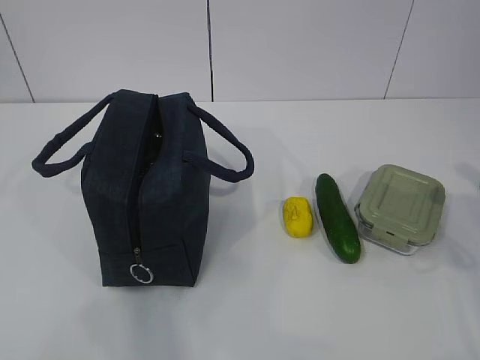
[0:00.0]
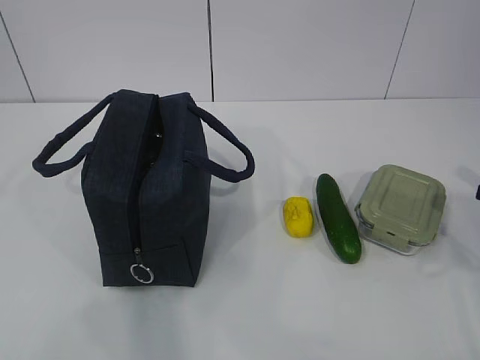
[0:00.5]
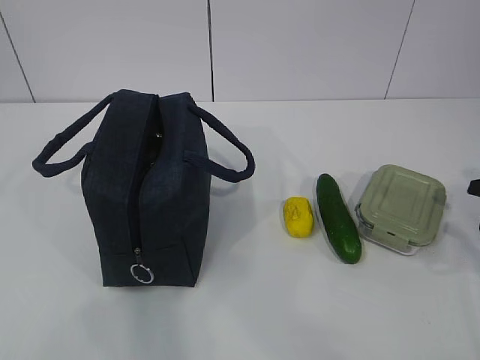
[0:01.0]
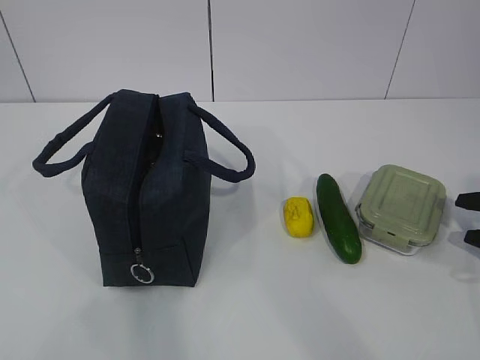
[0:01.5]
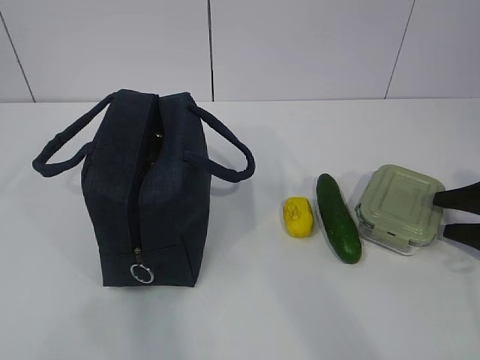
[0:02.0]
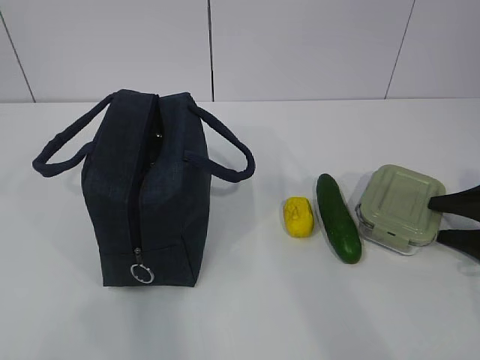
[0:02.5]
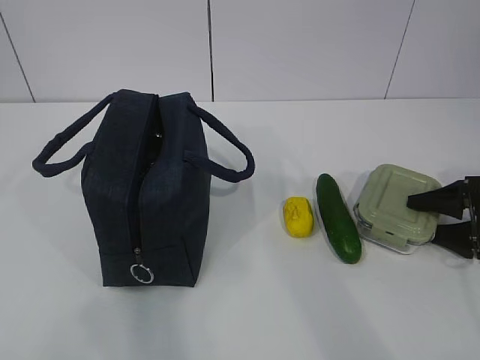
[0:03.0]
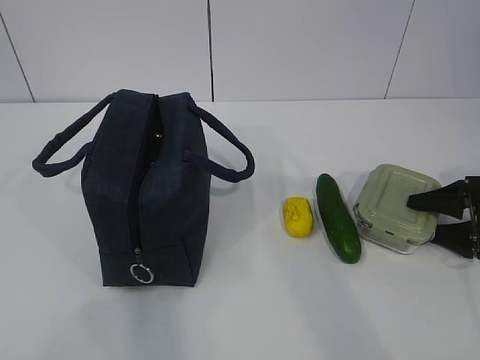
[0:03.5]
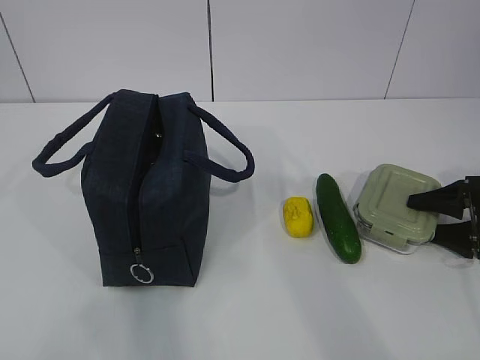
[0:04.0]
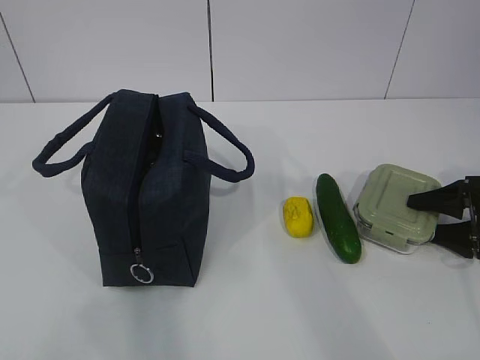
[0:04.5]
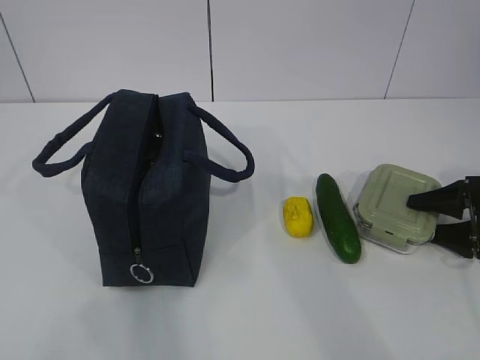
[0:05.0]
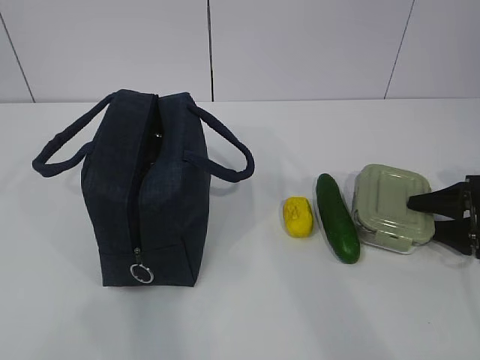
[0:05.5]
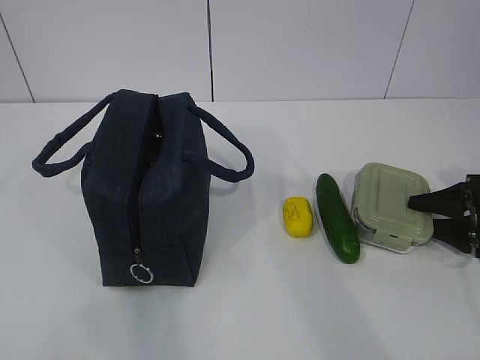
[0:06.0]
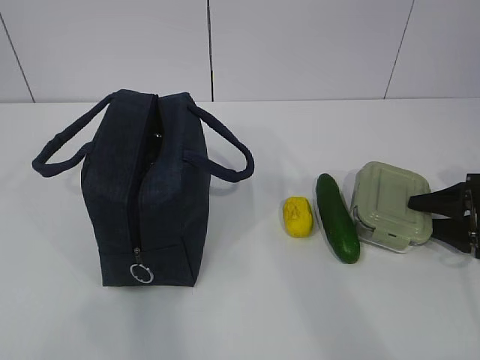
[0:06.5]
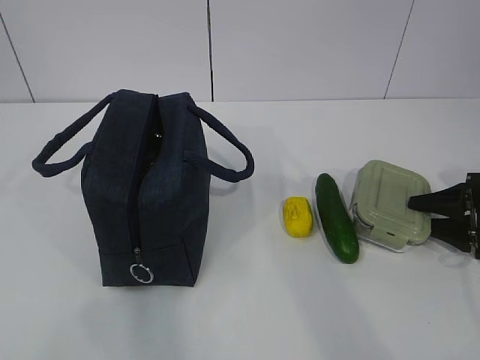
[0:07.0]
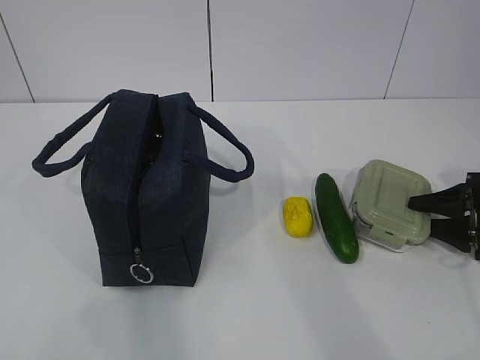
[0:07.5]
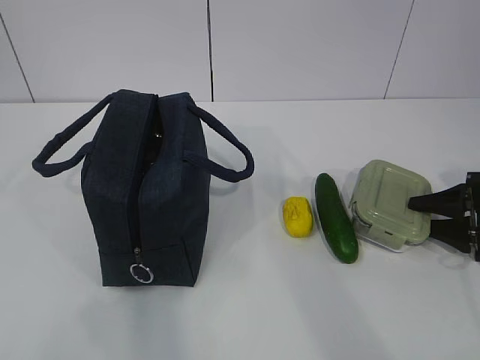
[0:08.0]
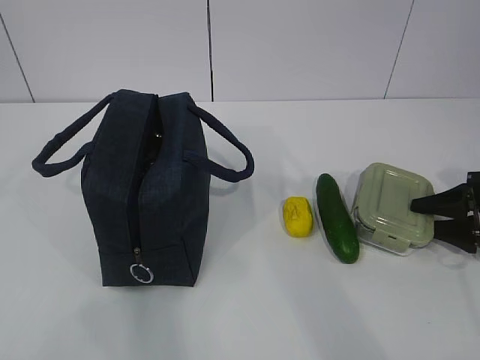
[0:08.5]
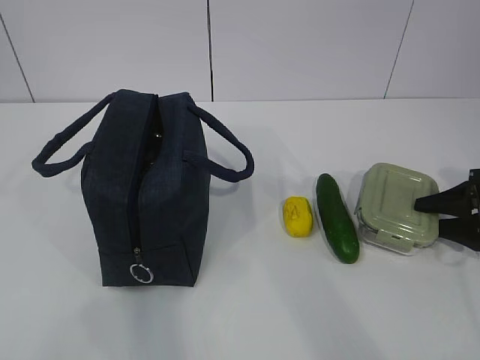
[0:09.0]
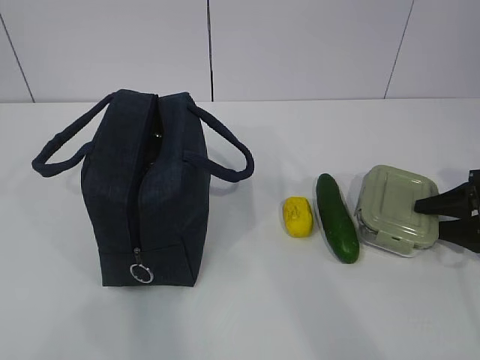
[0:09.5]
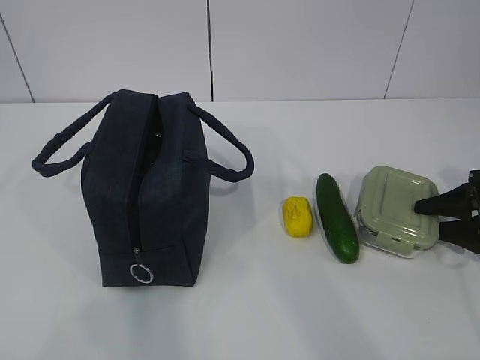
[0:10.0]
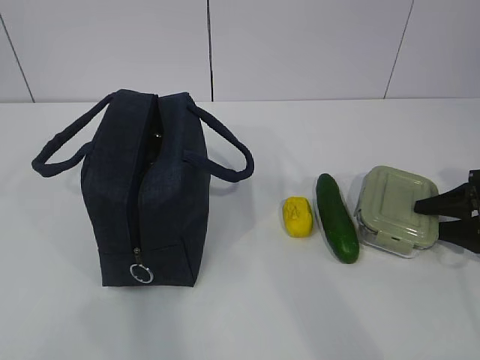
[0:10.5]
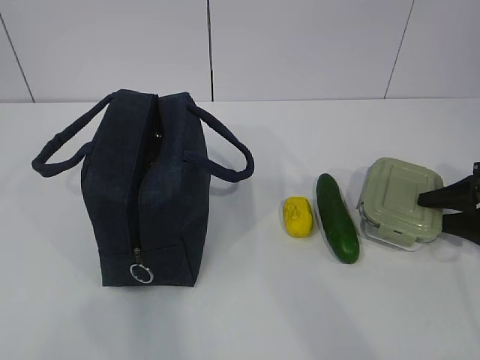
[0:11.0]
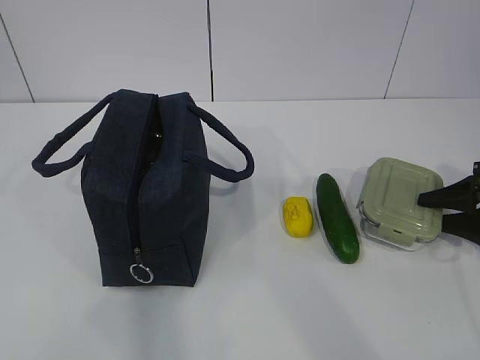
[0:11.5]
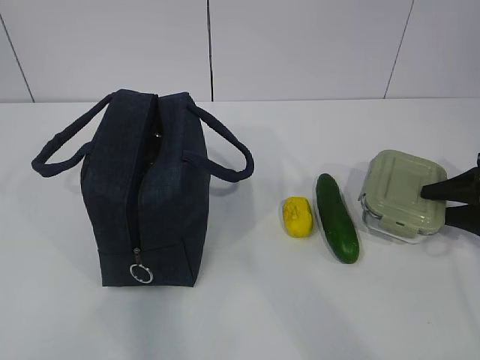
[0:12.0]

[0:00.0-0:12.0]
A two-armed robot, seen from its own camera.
Step, 0:00.0 to 0:07.5: Grab the lunch box with your right hand.
0:00.0 to 0:02.0: The right gripper goes roughly 10 cm downward and forward.
0:02.0 to 0:04.0: The grippers make only small movements.
0:04.0 to 0:08.0: Both grippers stay about where they are.
0:08.0 to 0:12.0: The grippers stay close to where they were, moving slightly.

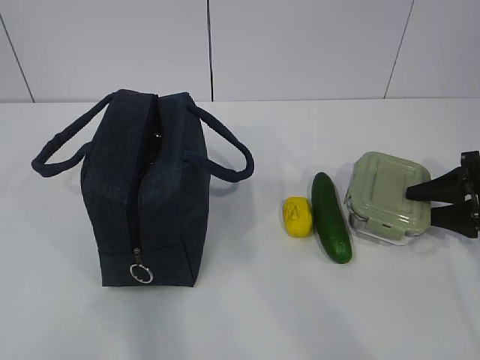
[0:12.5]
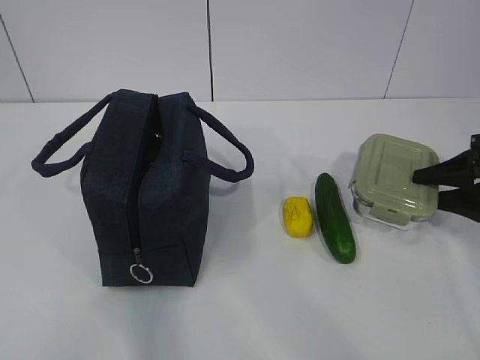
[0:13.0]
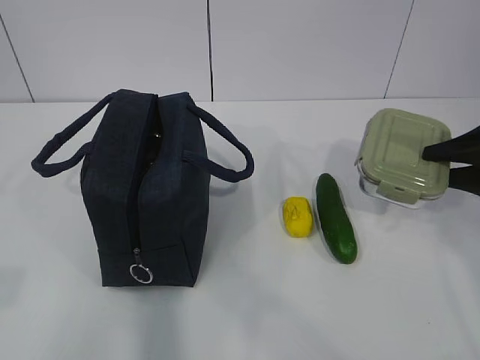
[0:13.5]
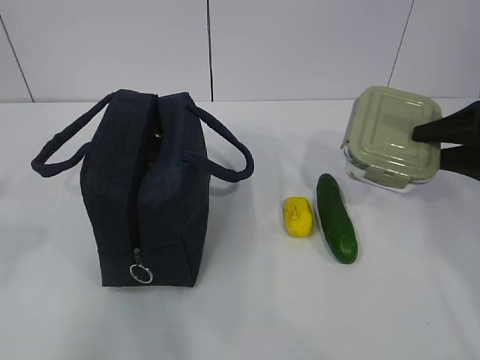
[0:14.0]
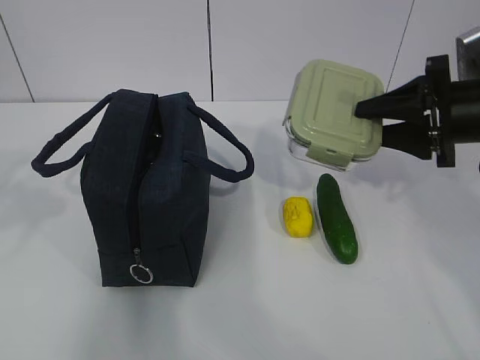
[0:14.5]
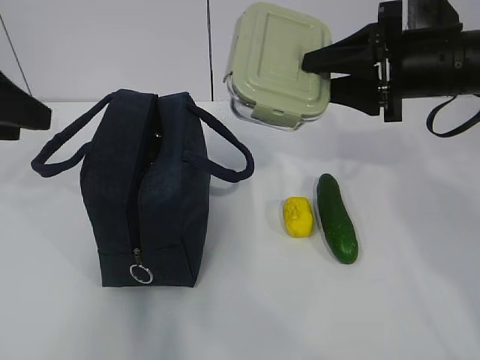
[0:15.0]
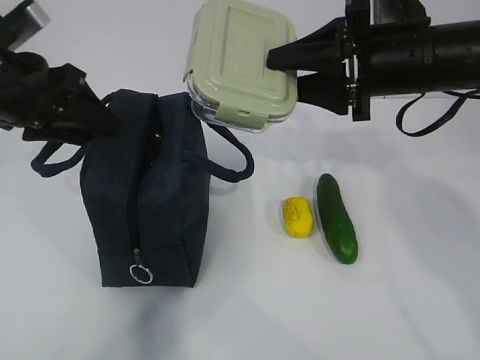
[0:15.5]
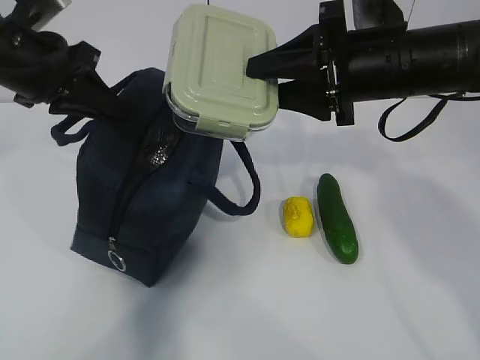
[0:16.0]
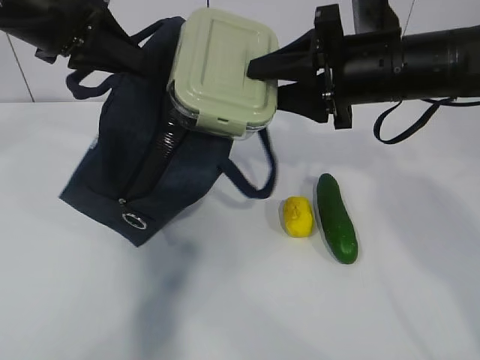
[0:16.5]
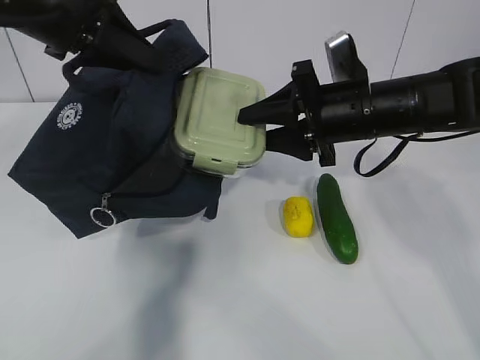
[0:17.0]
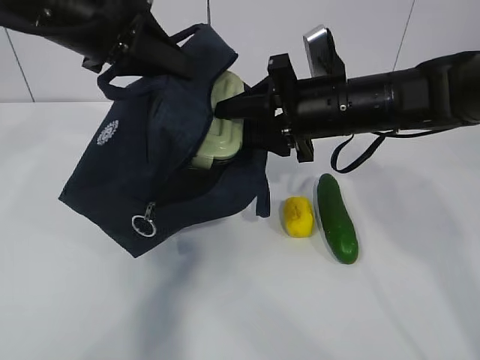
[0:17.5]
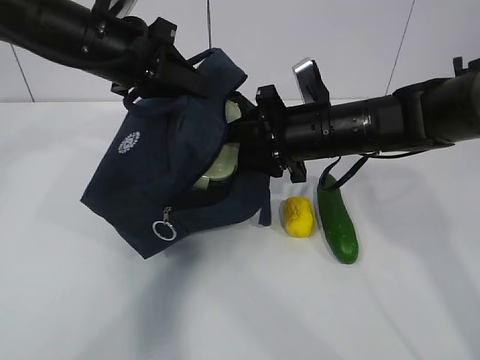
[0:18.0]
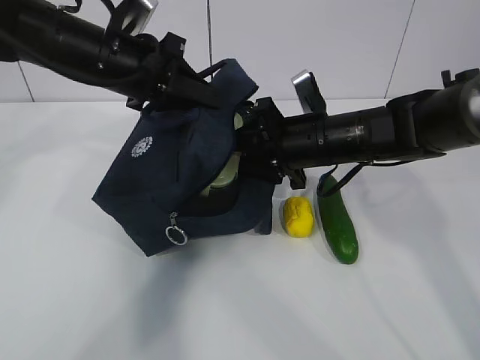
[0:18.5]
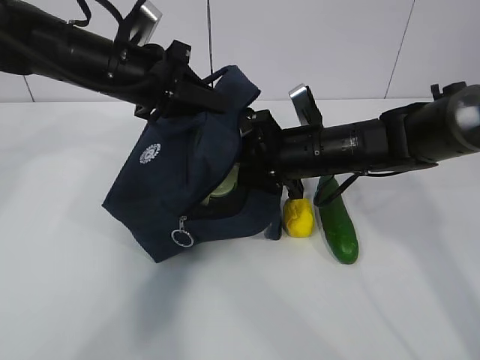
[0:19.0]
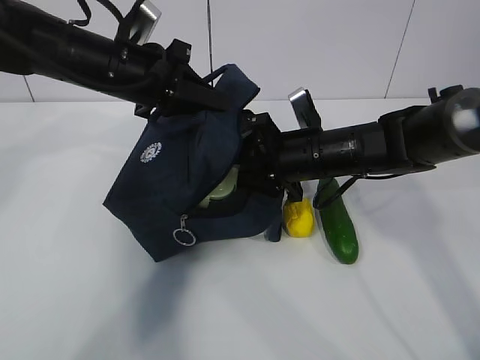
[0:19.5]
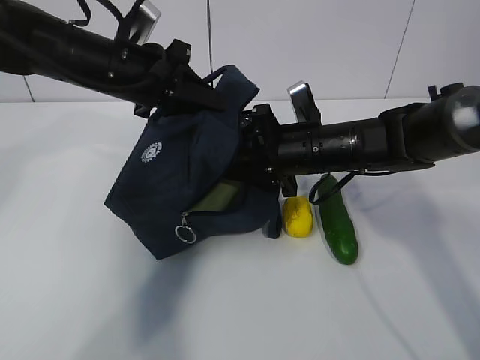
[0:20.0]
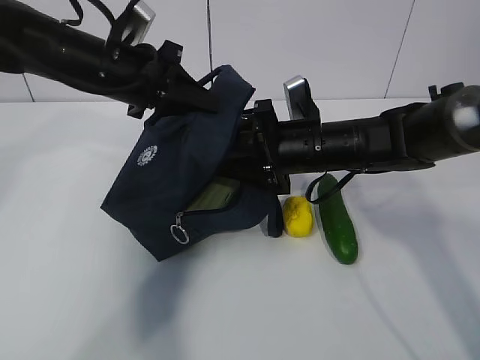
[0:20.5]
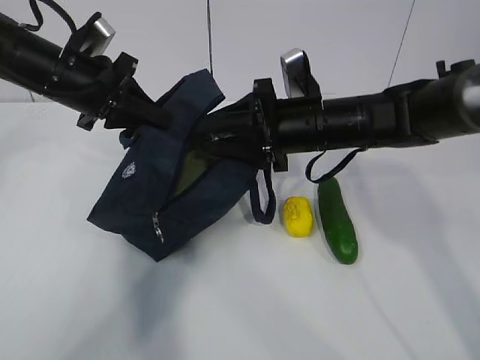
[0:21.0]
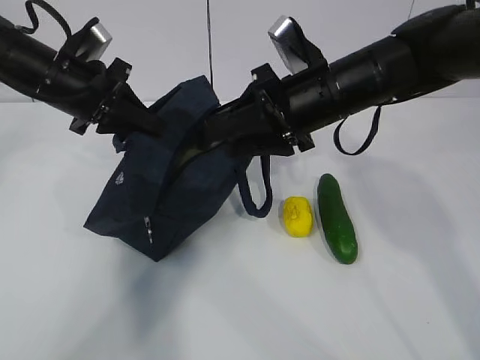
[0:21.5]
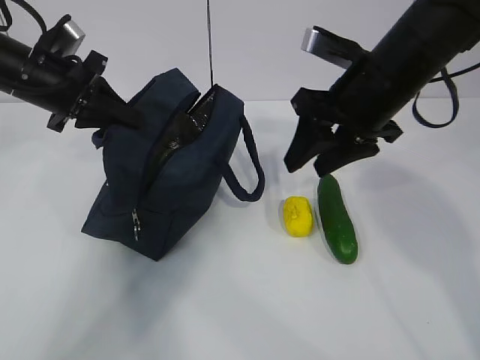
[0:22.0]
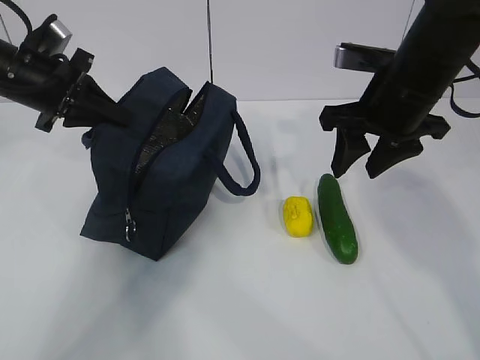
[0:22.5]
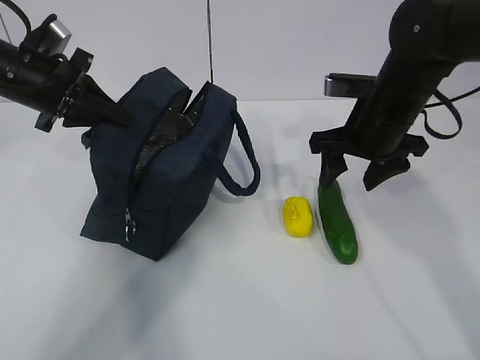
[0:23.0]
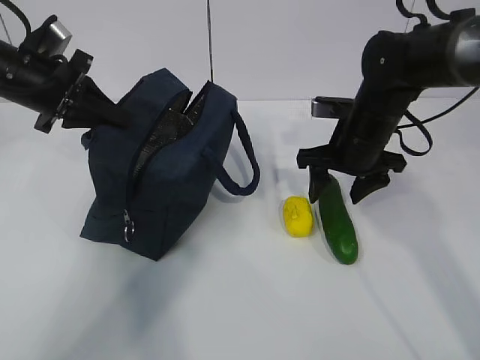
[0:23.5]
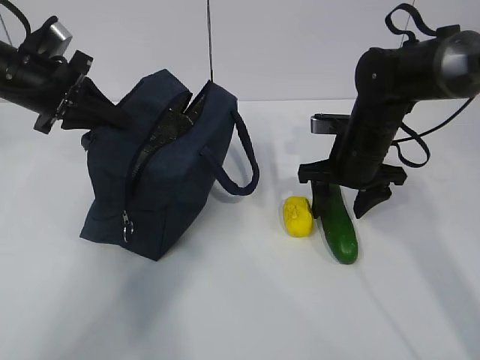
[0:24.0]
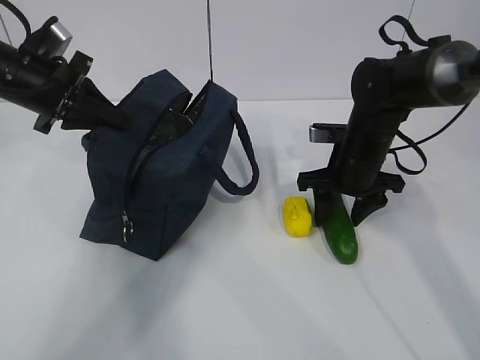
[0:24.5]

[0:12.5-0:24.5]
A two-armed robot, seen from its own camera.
Step, 0:13.0 to 0:15.5: Place it into the bag with your right hand.
Step, 0:16.5 to 0:19.5: Grab the cucumber with your right hand.
Step, 0:20.0 to 0:22.5: Place it into the bag with your right hand.
0:12.5 to 0:14.5: The right gripper shifts some 15 cm upward and to the left; the left gripper moves forward, some 15 cm.
0:14.5 to 0:16.5: The right gripper travels to the left by approximately 10 cm, while the left gripper travels forward and to the right by about 20 cm, and closes.
0:16.5 to 0:18.5: The left gripper moves downward and to the right, about 10 cm. Meanwhile the right gripper is displaced downward by about 10 cm.
0:18.5 to 0:20.5: The grippers make only small movements.
0:20.5 to 0:22.5: The left gripper heads to the left, covering some 10 cm; the right gripper moves upward and to the right, roughly 10 cm.
0:22.5 to 0:24.5: The right gripper travels downward and forward by roughly 15 cm.

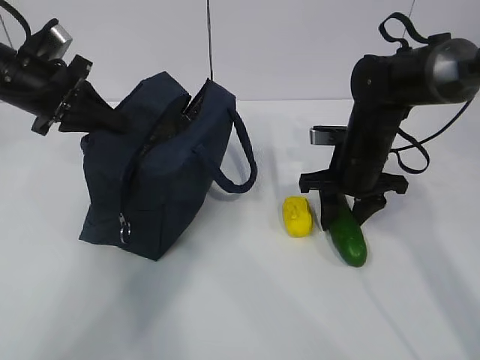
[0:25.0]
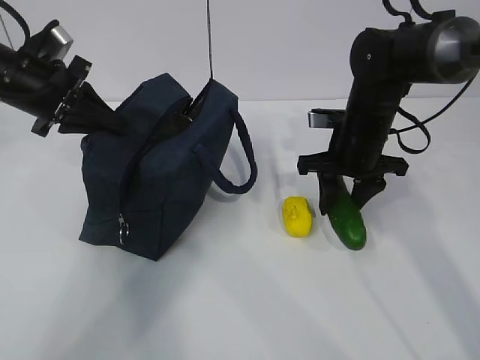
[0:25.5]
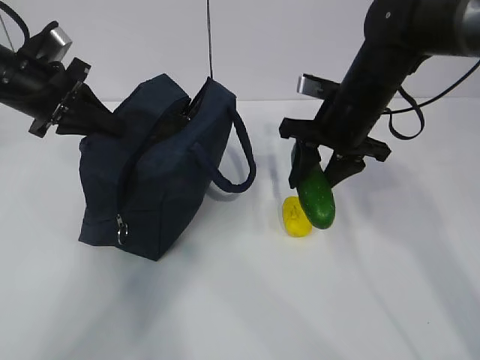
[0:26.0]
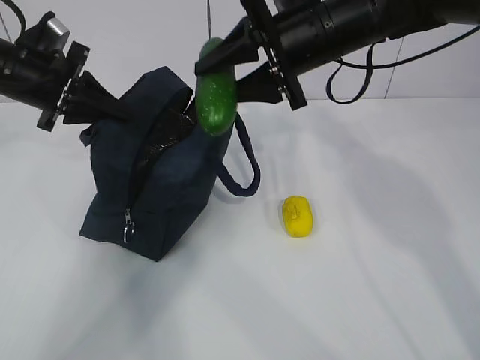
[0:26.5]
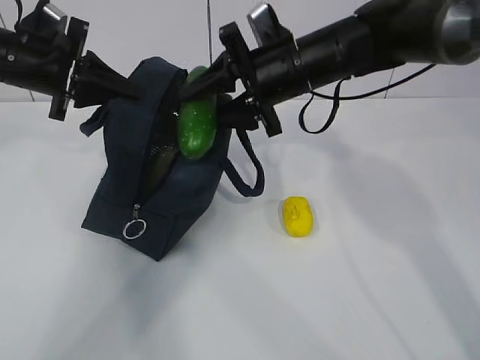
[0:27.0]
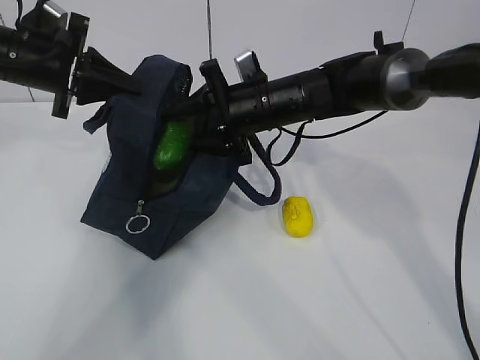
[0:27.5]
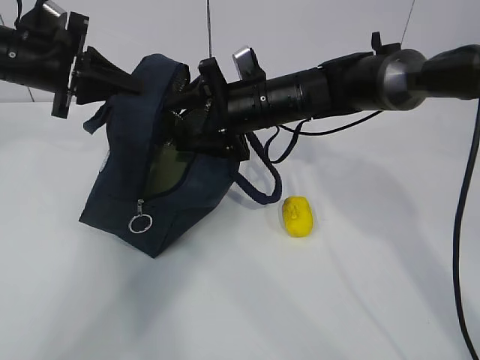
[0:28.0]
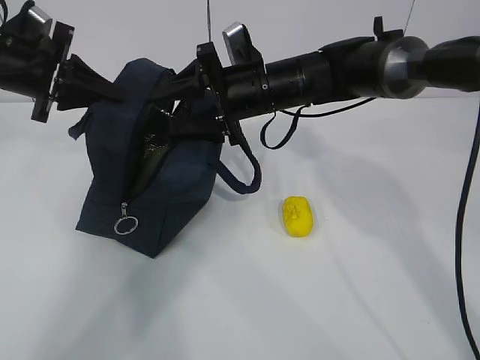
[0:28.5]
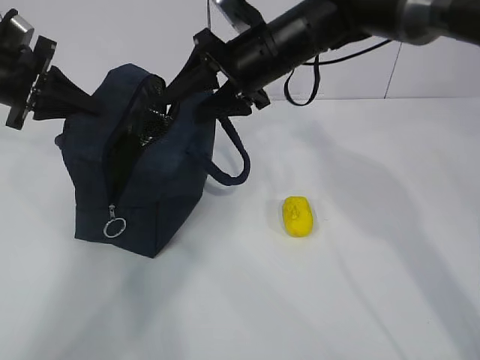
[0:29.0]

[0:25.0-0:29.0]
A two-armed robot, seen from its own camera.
0:25.0 to 0:27.0: The right gripper shifts roughly 15 cm upward and to the left.
